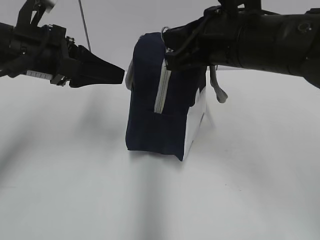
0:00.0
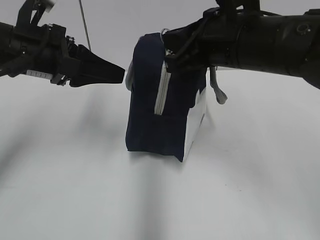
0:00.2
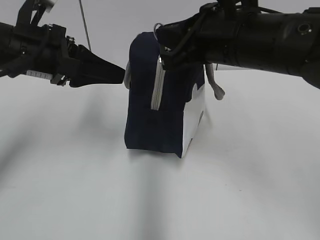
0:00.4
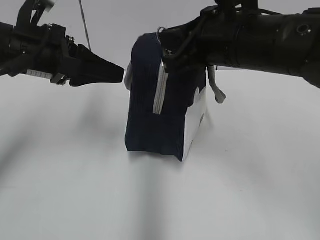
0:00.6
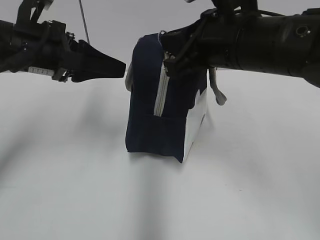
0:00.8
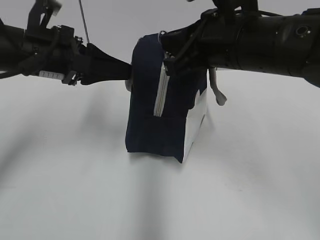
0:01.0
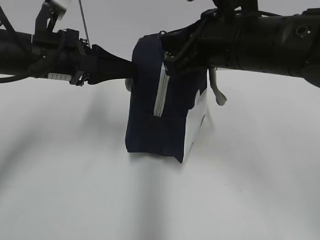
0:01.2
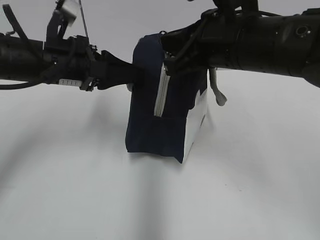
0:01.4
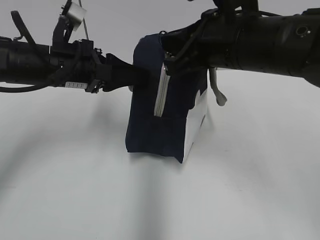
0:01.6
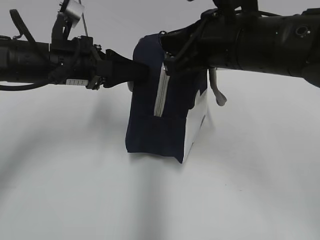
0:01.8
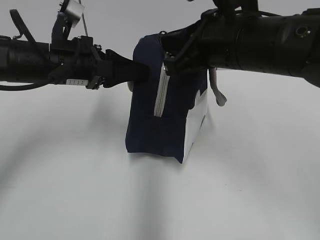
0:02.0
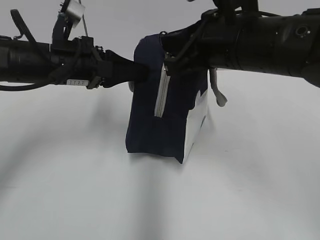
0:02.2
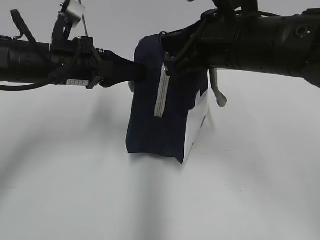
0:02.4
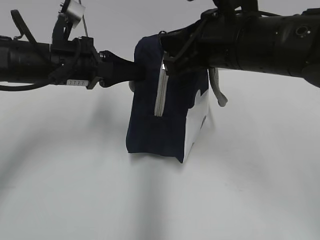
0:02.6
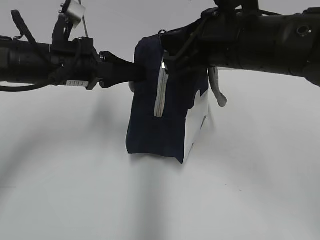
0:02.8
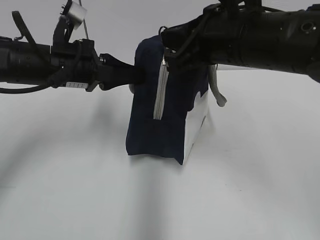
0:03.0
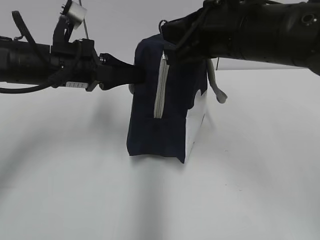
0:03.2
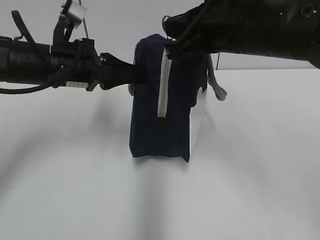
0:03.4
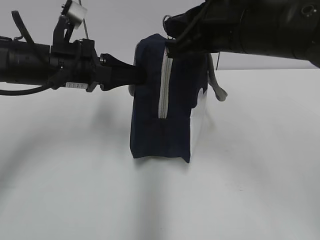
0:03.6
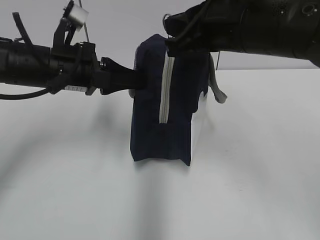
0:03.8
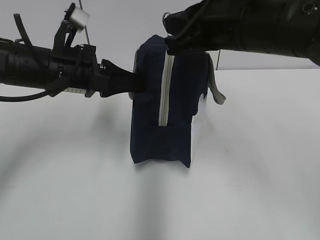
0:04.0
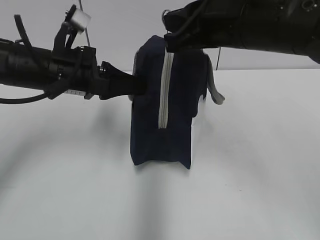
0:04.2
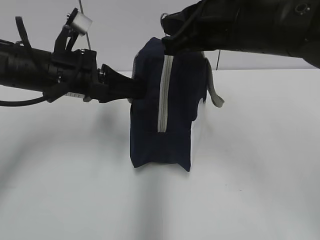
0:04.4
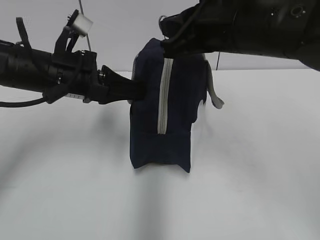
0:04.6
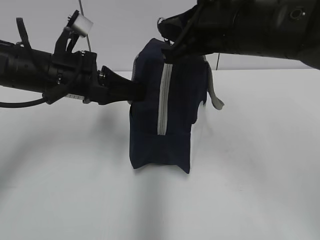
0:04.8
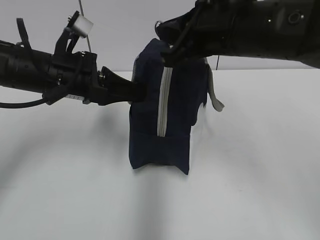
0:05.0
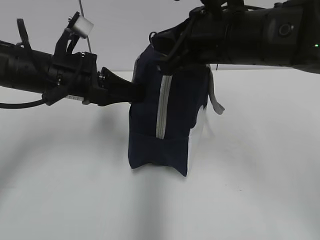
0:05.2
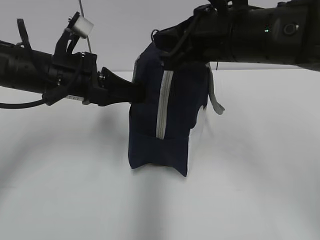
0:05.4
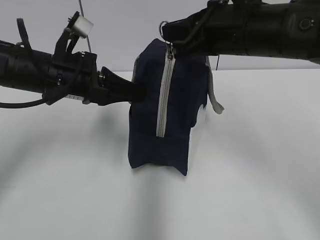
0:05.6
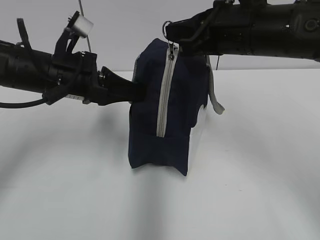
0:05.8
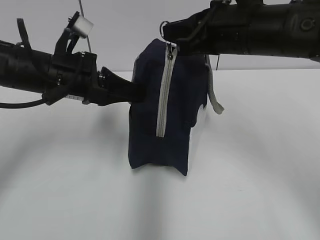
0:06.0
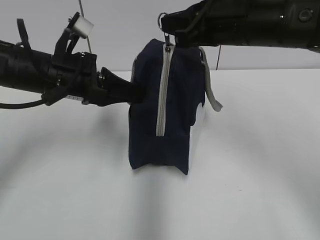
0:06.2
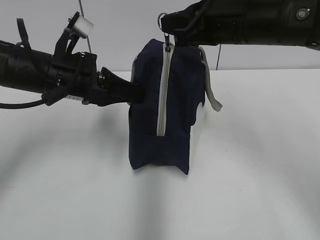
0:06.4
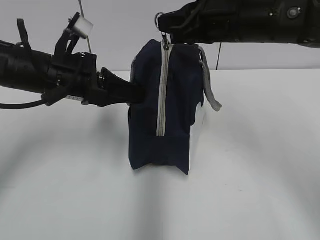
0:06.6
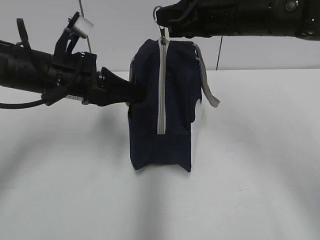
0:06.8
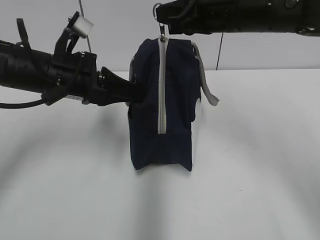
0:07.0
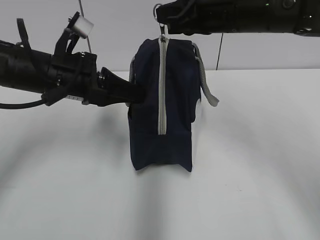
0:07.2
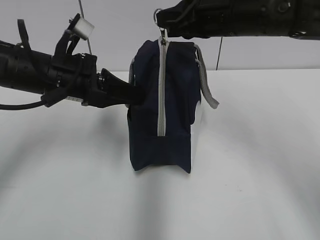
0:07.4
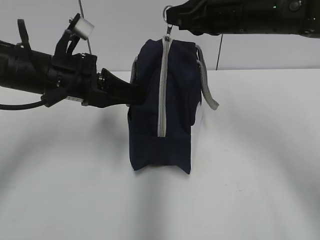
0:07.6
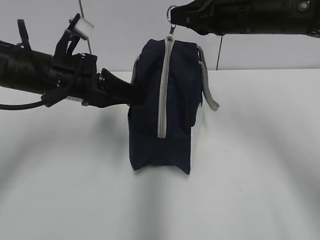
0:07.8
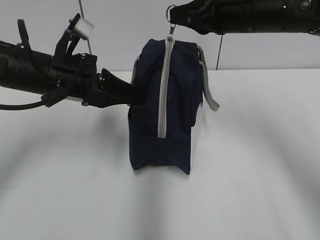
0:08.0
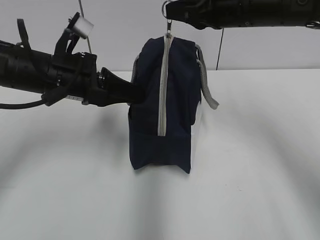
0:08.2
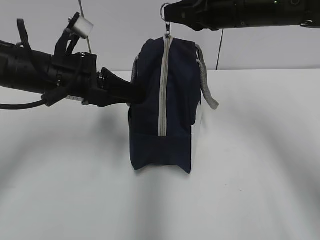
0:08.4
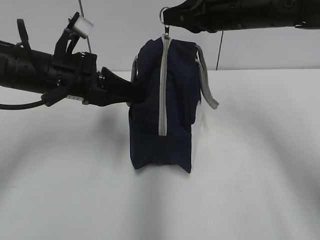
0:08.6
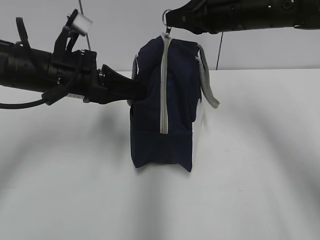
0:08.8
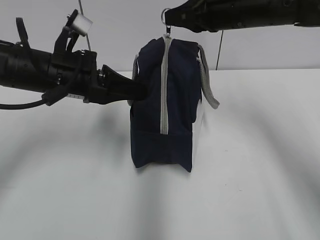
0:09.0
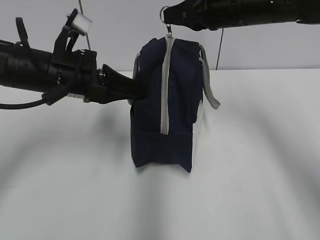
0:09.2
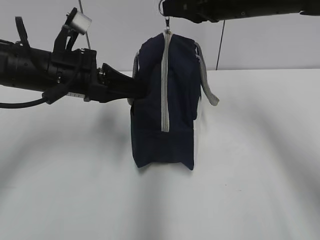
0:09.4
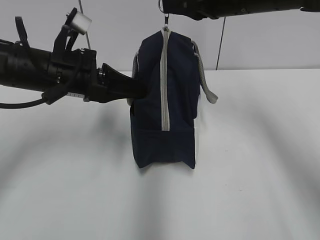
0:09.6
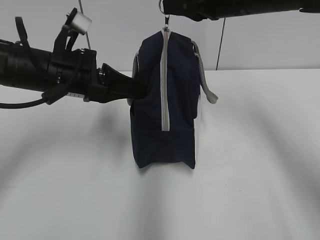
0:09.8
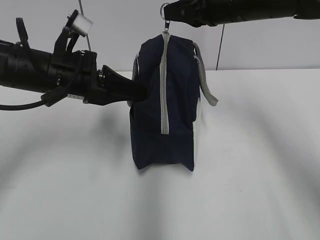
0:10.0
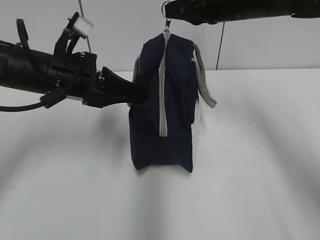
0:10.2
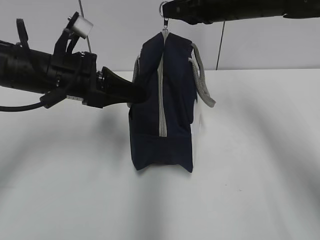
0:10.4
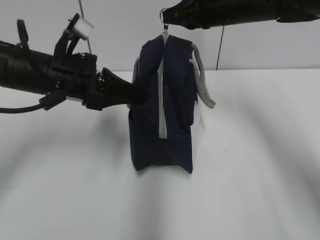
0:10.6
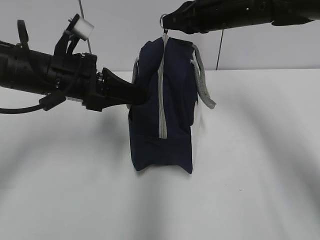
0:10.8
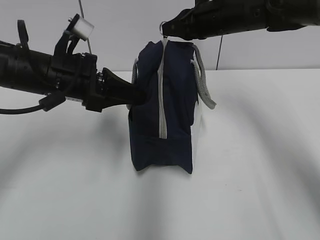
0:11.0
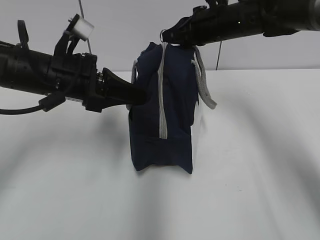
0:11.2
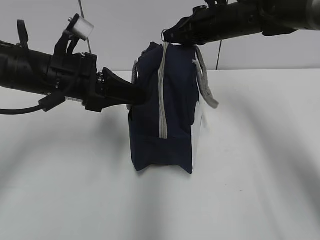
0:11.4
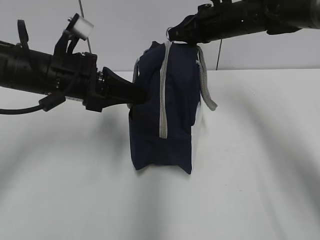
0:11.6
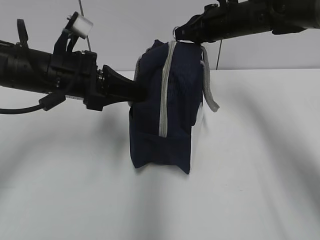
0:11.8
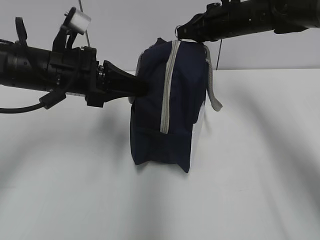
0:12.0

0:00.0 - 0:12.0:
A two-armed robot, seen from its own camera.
0:00.0 - 0:01.6: The left gripper shifts by some 5 cm.
0:01.6 - 0:03.0: The left gripper closes.
0:03.0 - 0:06.0: The grippers make only small movements.
0:06.0 - 0:07.6: There are only small adjustments of the grippers.
0:07.6 - 0:09.0: The grippers make only small movements.
0:09.0 - 0:10.4: The grippers stay close to where they were, moving slightly.
0:10.4 - 0:12.0: The right gripper heads forward and downward, covering approximately 5 cm.

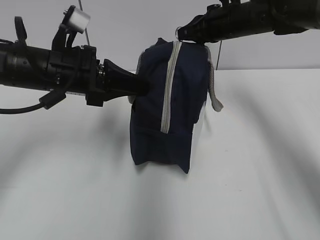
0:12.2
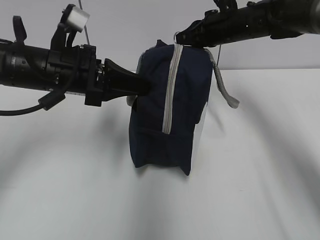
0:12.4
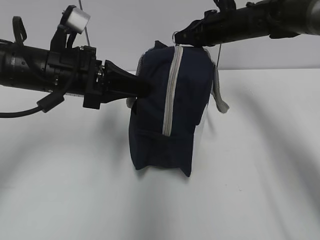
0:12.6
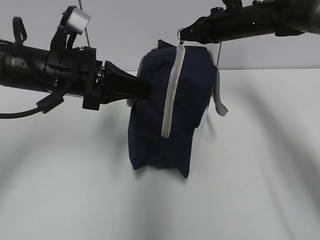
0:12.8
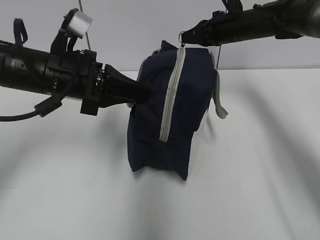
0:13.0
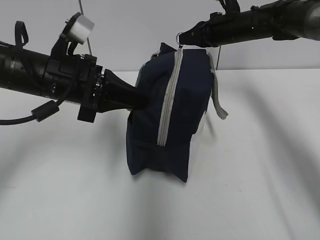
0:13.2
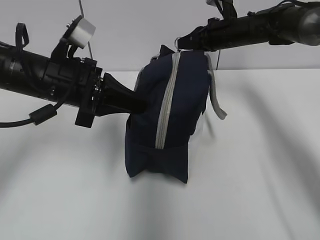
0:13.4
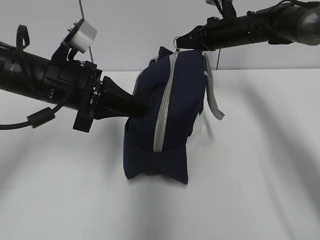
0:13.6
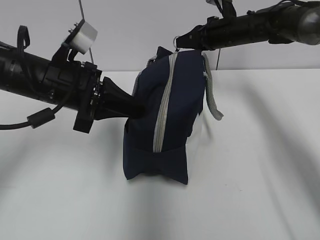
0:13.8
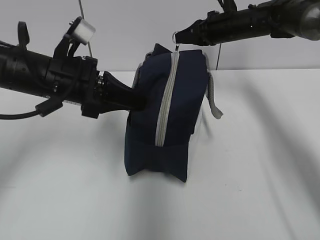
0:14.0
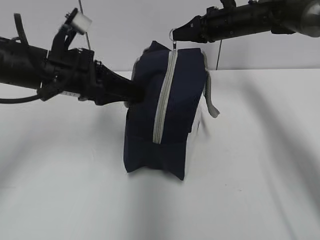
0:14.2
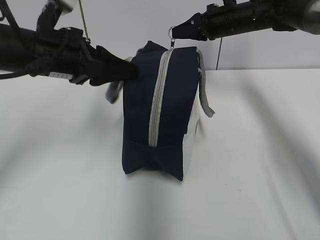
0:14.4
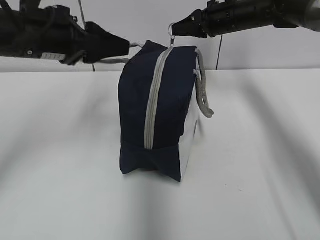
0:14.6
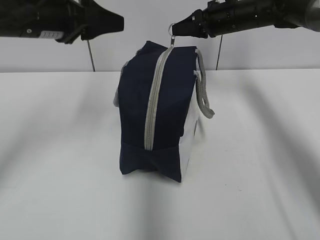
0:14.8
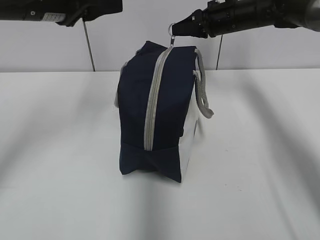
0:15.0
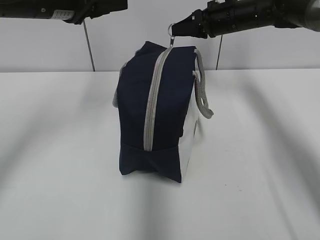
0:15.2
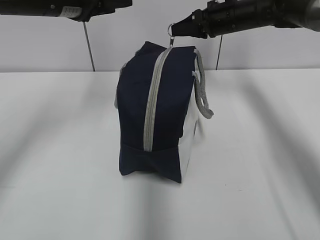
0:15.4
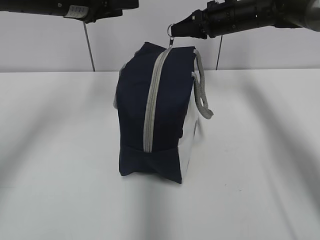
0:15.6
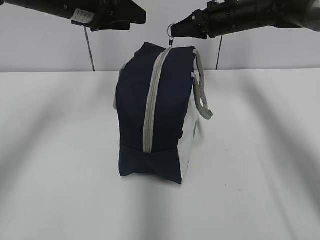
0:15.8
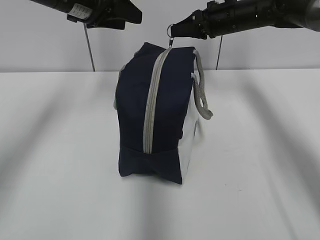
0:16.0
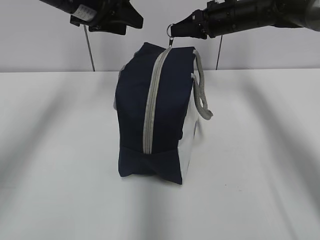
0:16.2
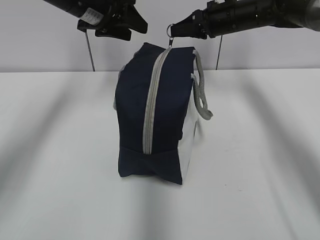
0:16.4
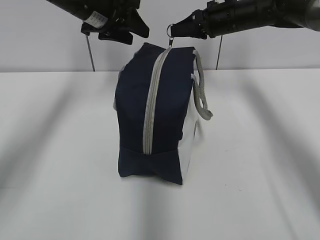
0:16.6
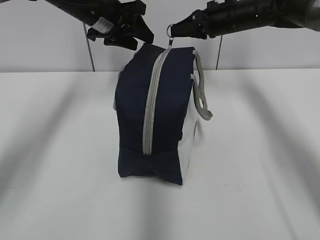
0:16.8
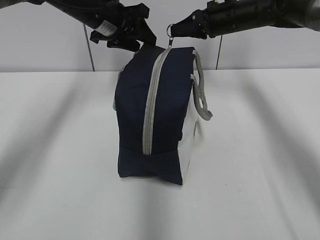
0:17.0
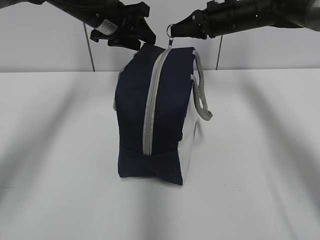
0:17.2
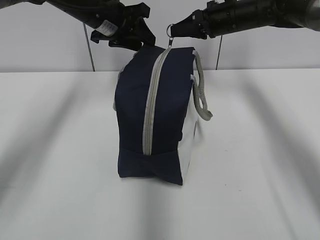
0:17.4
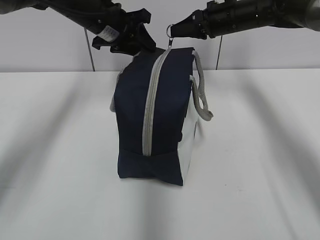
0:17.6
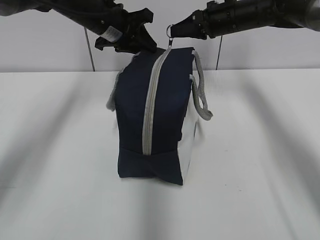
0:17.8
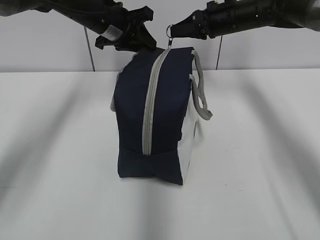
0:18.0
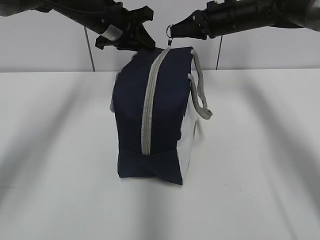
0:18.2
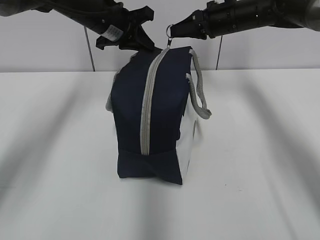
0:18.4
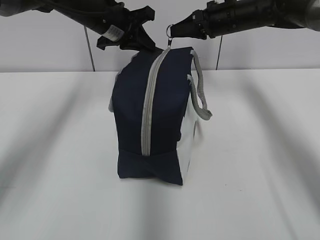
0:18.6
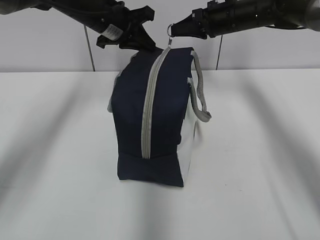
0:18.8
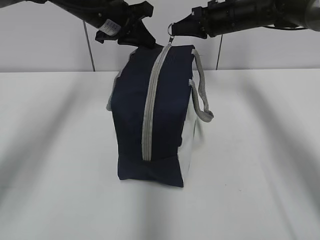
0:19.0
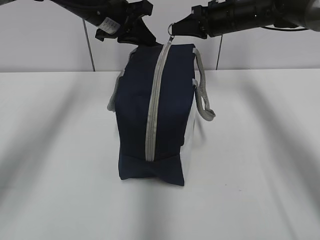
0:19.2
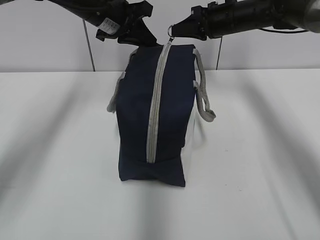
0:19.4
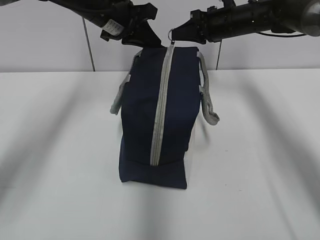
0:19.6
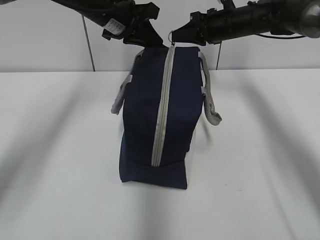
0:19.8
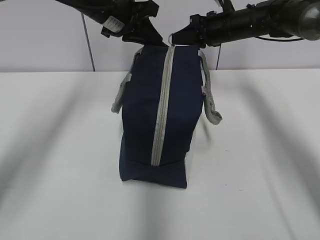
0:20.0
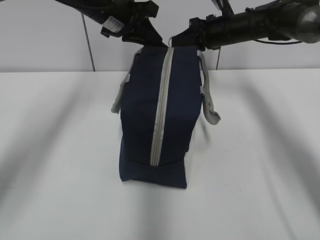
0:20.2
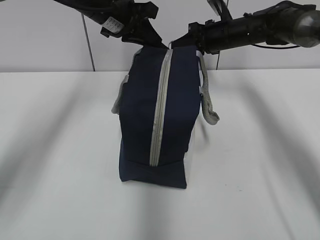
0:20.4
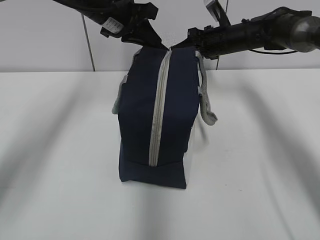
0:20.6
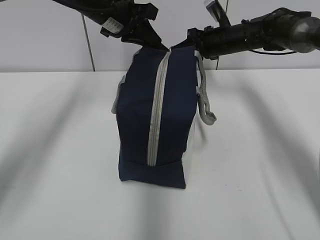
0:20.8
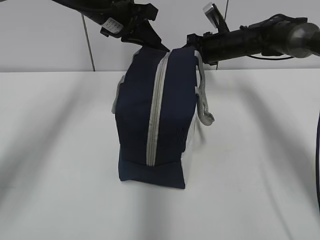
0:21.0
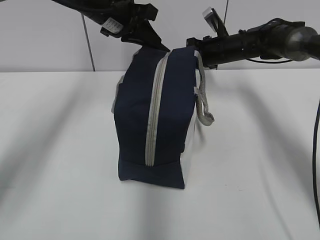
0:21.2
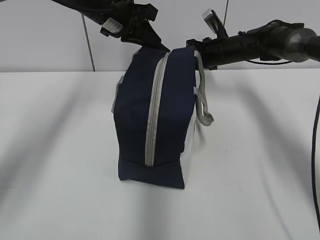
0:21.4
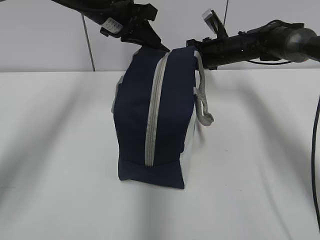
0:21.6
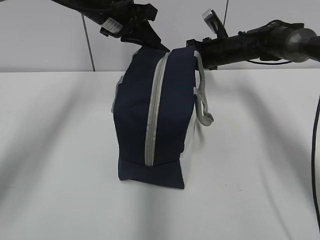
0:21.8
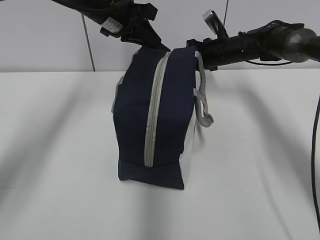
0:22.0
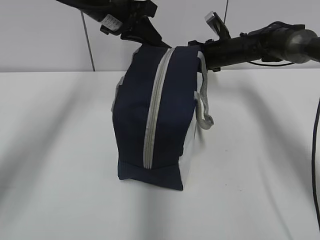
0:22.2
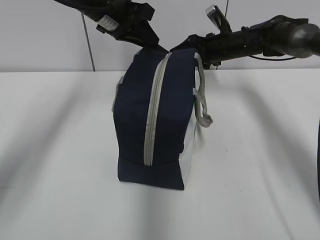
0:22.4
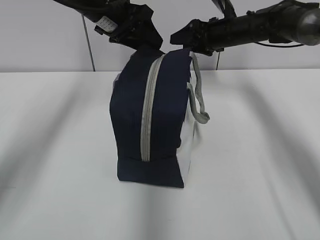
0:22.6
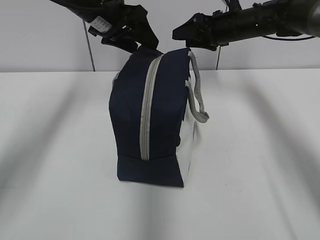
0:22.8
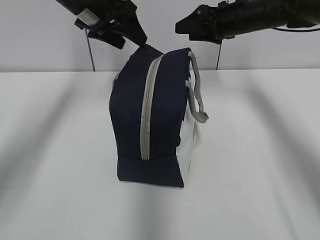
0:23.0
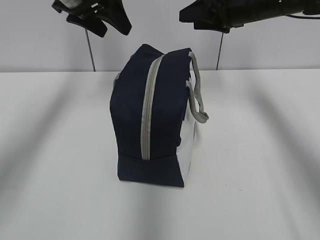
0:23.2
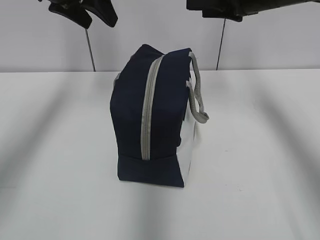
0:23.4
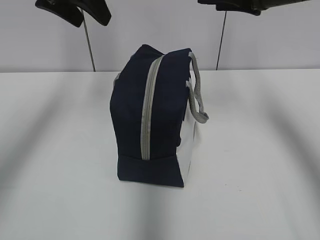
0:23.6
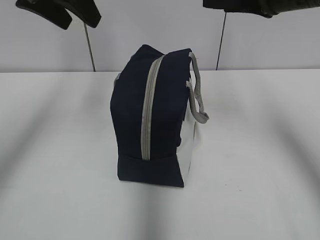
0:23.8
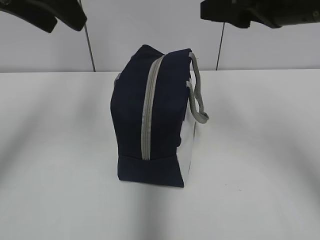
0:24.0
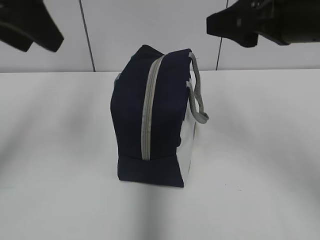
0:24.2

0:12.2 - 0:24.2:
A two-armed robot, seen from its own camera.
Step, 0:12.2 - 0:14.2: Grab the lunch bag with your left hand.
Step, 0:14.4 - 0:22.2: Pull the zipper with your right hand.
Step, 0:22.4 - 0:22.8: Grab the lunch bag with your left hand.
0:12.2 - 0:13.8: The right gripper shifts by roughly 5 cm.
0:13.8 - 0:15.2: The left gripper shifts approximately 10 cm upward and forward, and opens.
0:15.2 - 0:16.6: The left gripper is displaced forward by approximately 10 cm.
0:16.6 - 0:18.2: The left gripper closes up.
0:18.2 - 0:19.8: The grippers move only a little.
0:19.8 - 0:21.2: The right gripper is displaced downward by approximately 5 cm.
0:21.2 - 0:22.6: The left gripper opens up. Meanwhile the right gripper opens its fingers.
0:22.6 - 0:24.2: The left gripper shifts about 25 cm backward, upward and to the left; the right gripper goes some 30 cm backward and upward.
